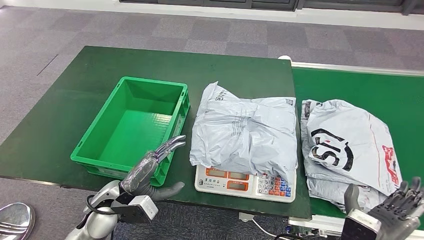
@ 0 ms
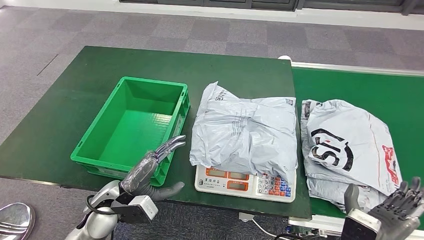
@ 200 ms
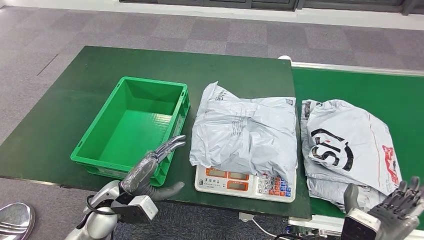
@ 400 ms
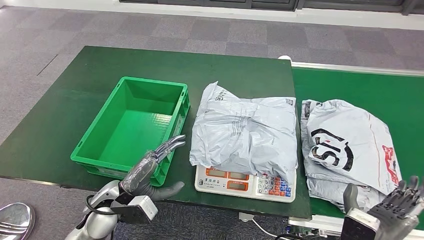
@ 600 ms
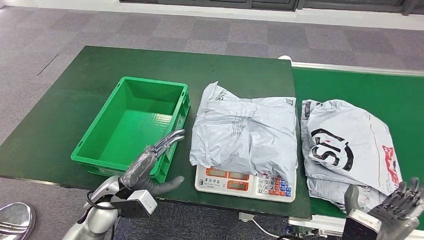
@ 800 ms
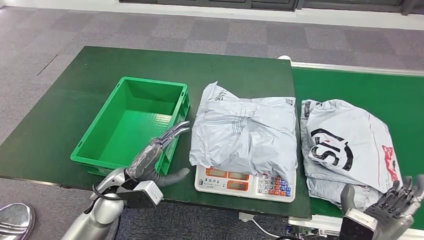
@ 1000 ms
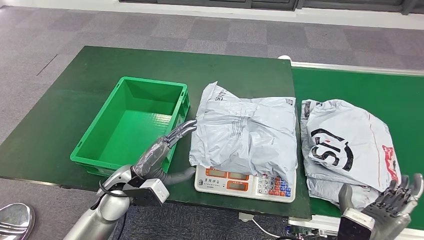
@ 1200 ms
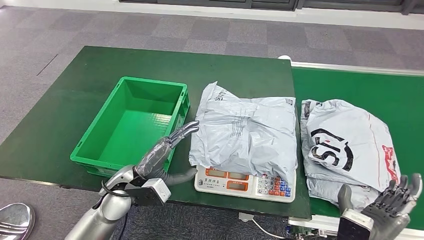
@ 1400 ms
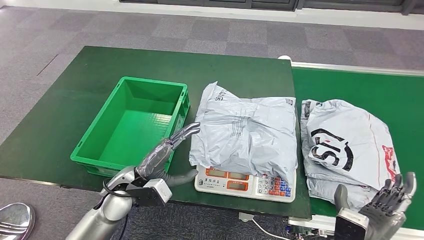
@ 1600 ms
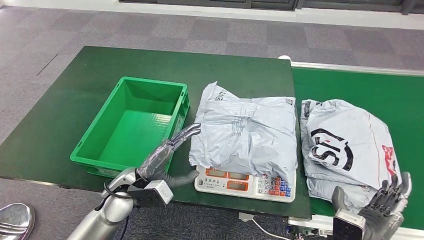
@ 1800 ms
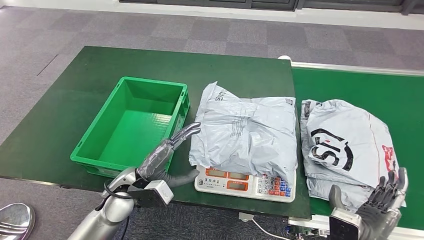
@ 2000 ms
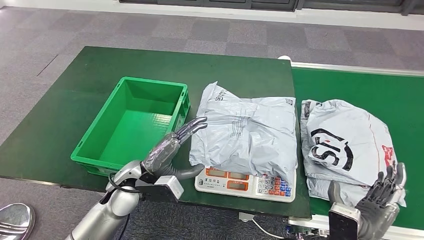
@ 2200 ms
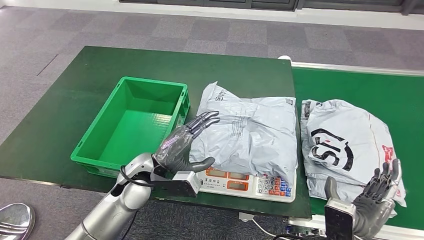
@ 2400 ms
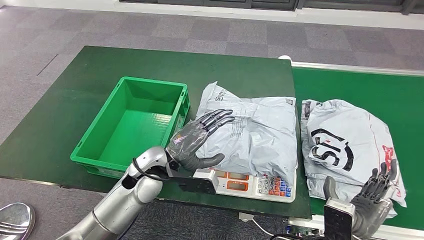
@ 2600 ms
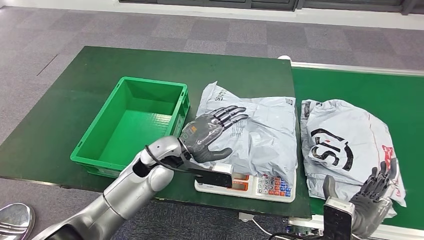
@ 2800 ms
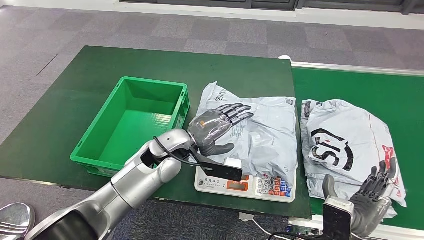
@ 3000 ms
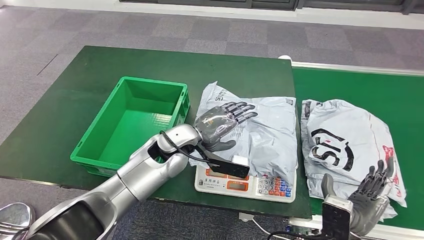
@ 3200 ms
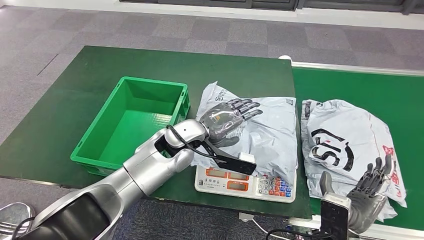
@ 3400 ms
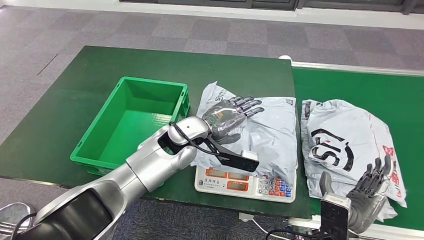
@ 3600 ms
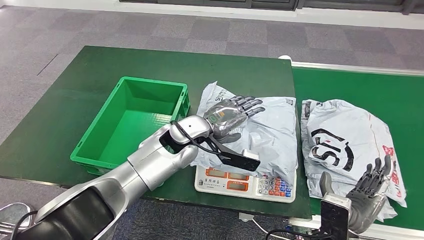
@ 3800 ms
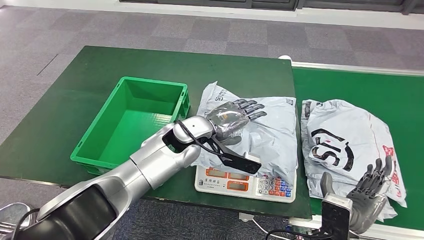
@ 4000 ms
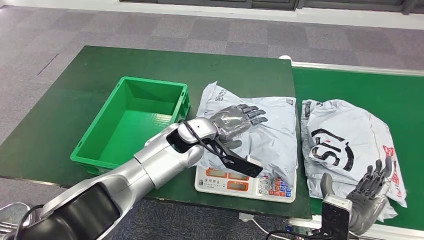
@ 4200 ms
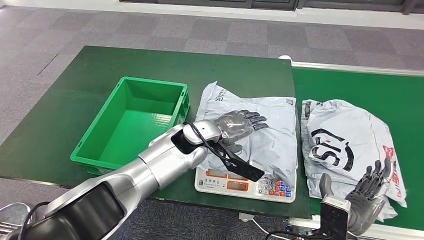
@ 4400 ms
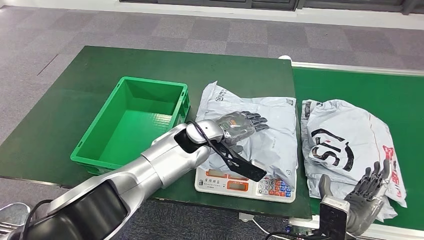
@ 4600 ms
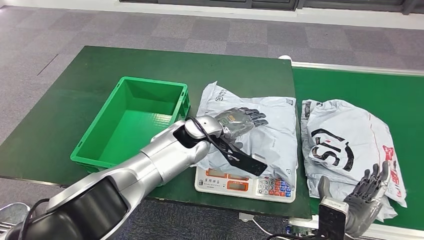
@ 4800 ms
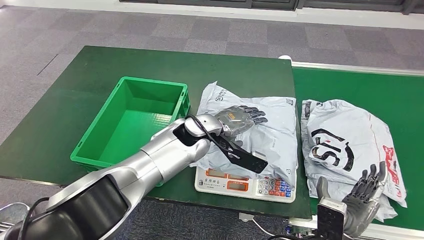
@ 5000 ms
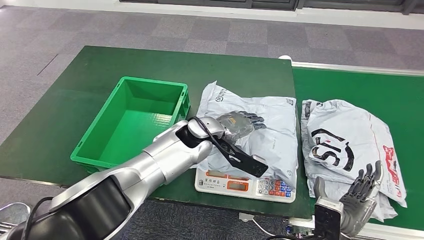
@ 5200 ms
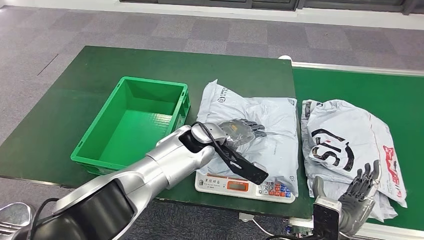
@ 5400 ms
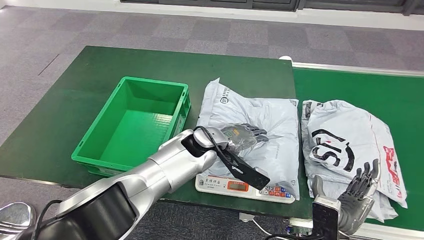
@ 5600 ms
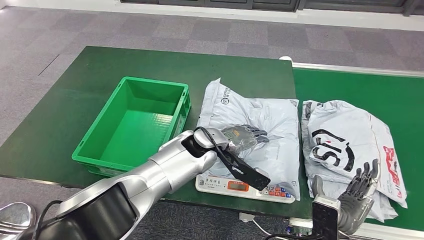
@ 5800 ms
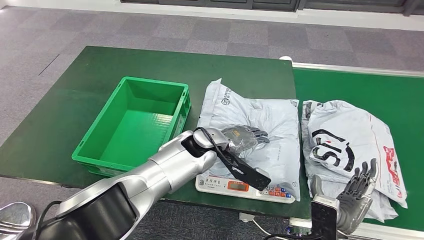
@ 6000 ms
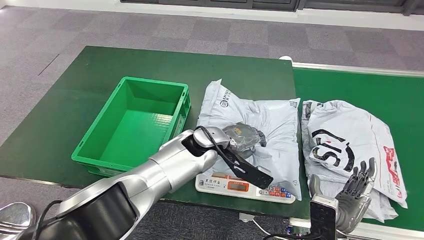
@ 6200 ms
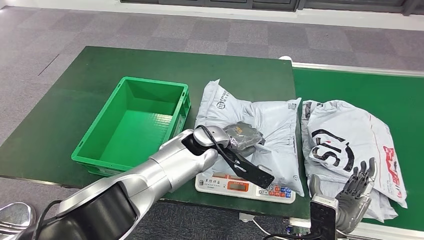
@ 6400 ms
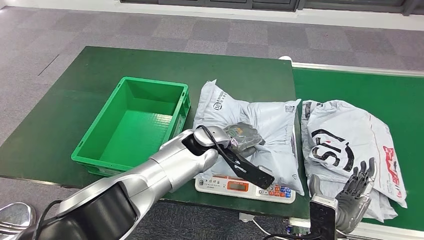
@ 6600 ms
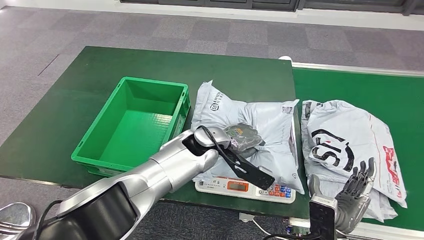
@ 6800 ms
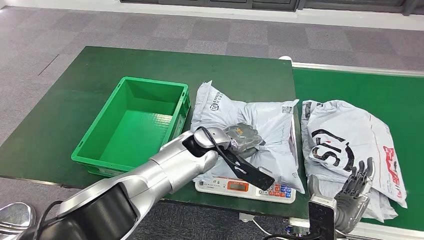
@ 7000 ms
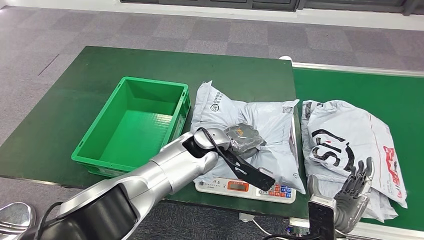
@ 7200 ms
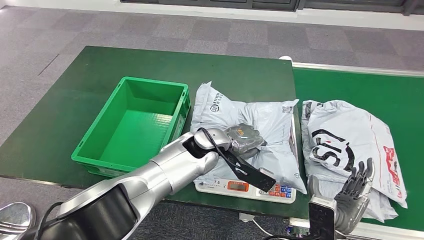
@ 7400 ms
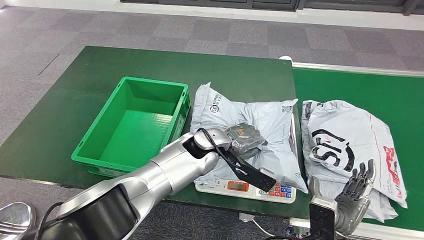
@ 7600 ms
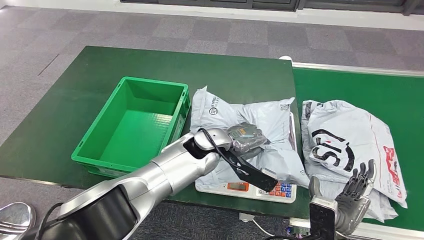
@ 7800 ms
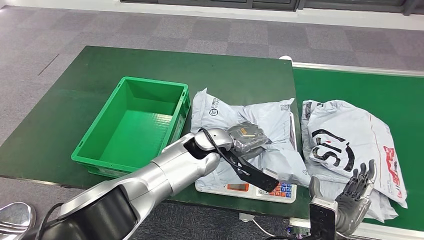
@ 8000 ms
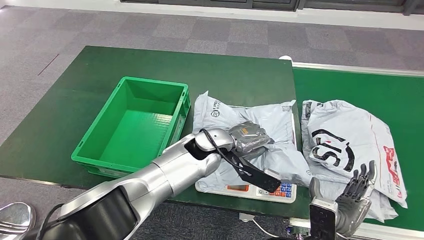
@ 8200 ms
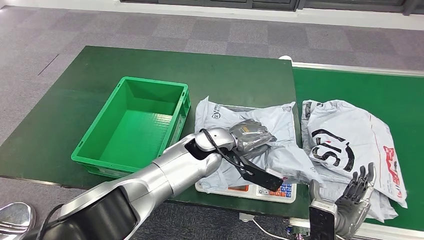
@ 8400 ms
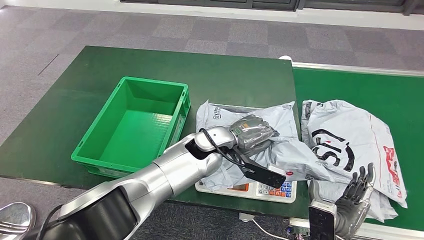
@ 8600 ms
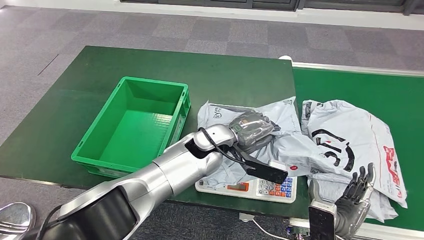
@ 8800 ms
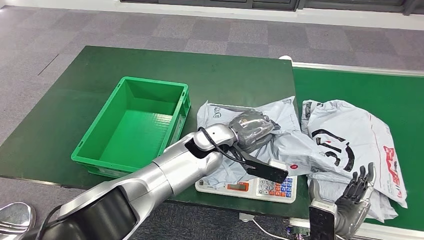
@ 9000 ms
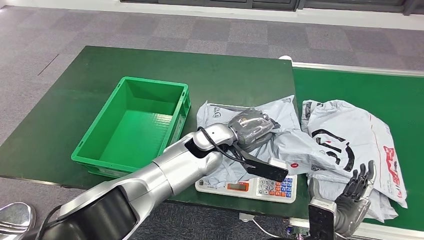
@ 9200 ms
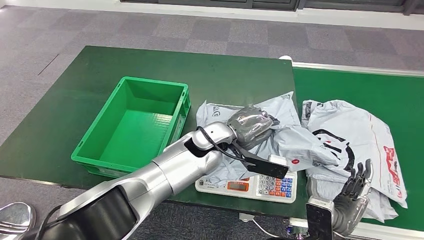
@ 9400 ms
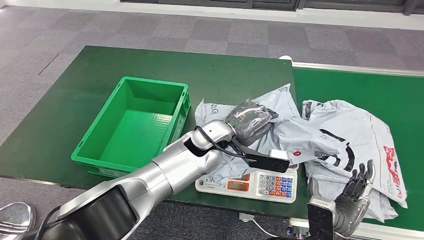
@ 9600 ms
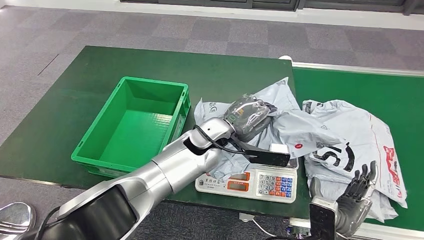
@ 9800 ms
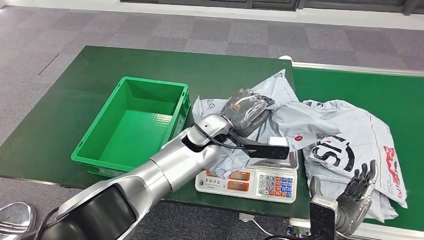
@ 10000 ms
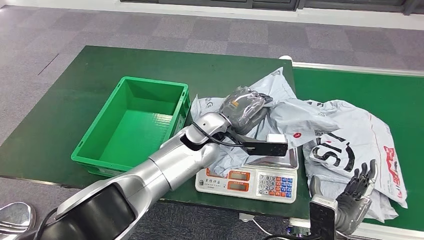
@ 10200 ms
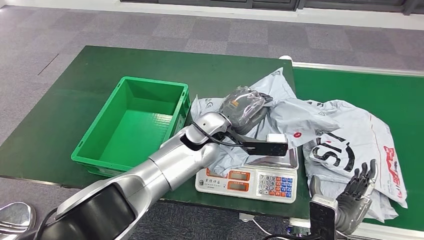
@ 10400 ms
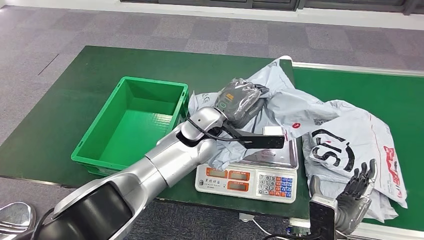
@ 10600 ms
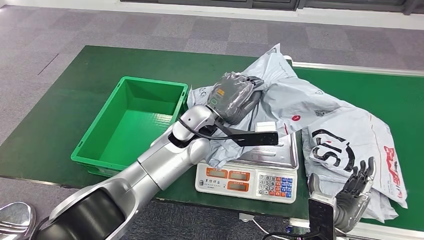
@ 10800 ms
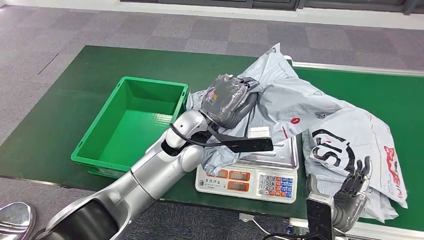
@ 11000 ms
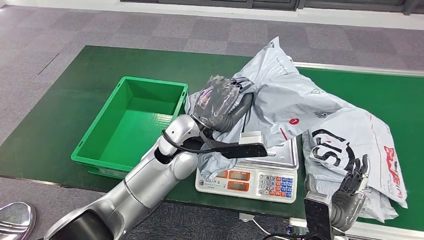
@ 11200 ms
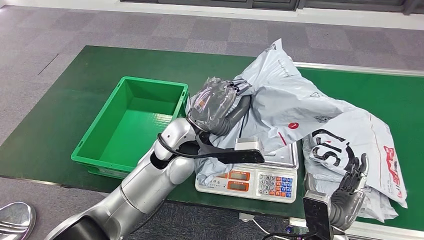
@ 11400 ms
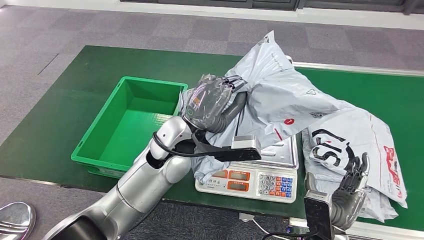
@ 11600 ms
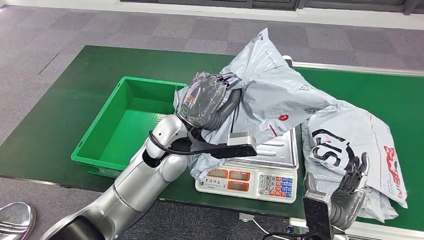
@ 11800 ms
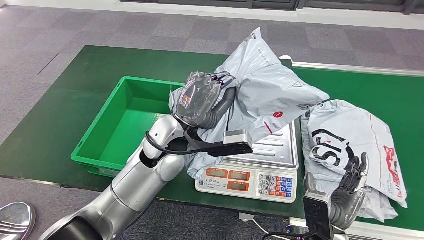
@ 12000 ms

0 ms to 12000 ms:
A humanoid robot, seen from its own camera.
0 ms to 1600 ms: The left hand moves about 5 cm.
1600 ms to 3000 ms: The left hand moves to the right, forward and upward, roughly 15 cm.
3000 ms to 4400 ms: The left hand travels to the right by roughly 5 cm.
4400 ms to 9000 ms: The hands move only a little.
9000 ms to 10400 ms: The hands move only a little.

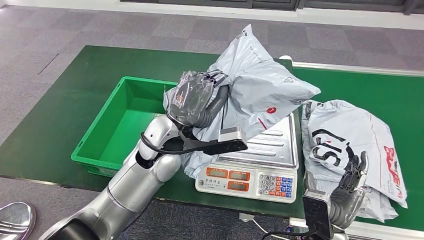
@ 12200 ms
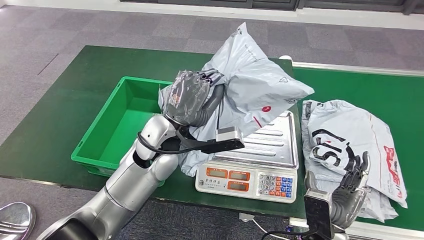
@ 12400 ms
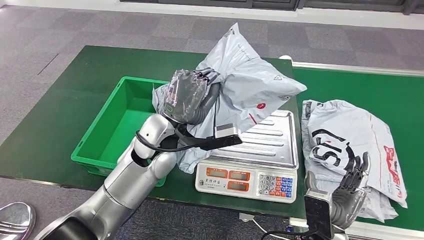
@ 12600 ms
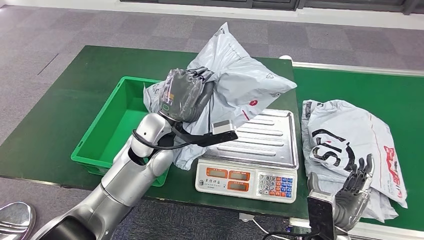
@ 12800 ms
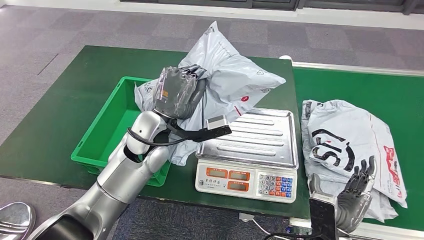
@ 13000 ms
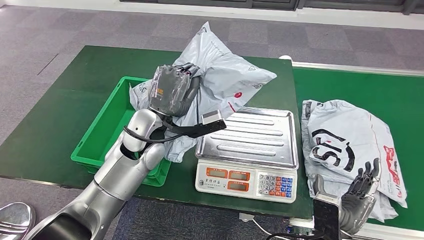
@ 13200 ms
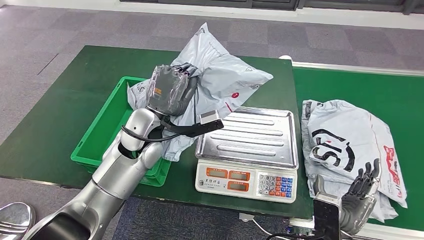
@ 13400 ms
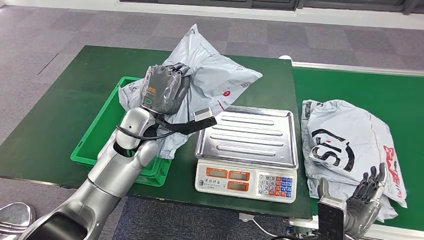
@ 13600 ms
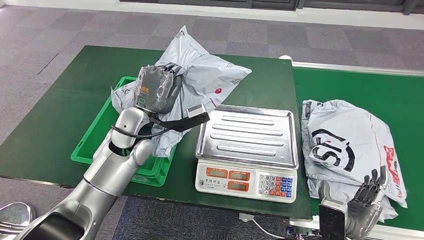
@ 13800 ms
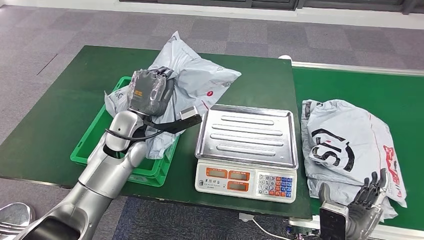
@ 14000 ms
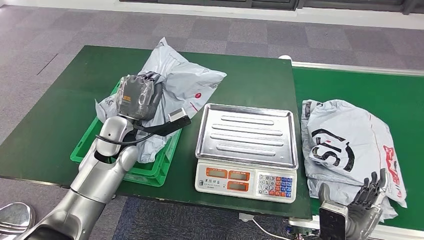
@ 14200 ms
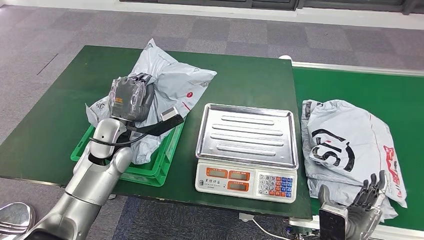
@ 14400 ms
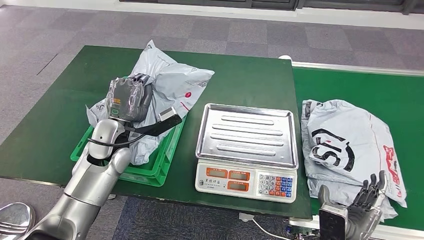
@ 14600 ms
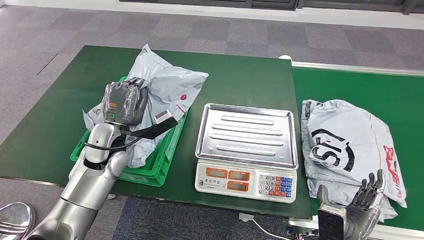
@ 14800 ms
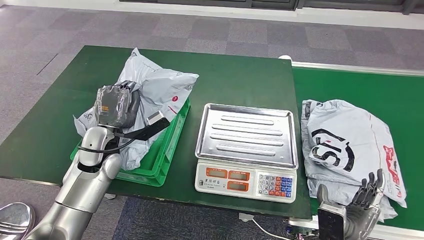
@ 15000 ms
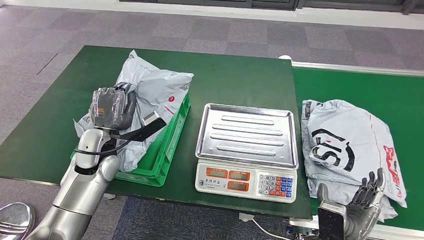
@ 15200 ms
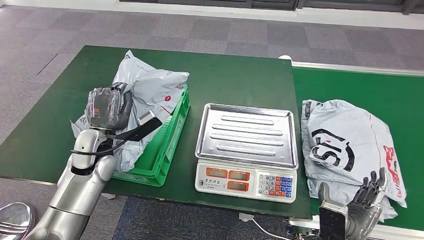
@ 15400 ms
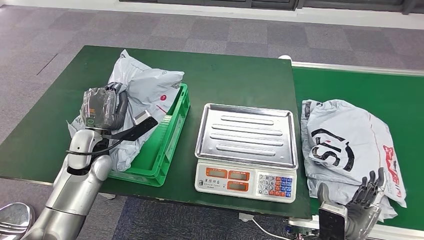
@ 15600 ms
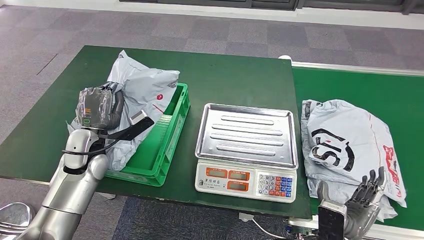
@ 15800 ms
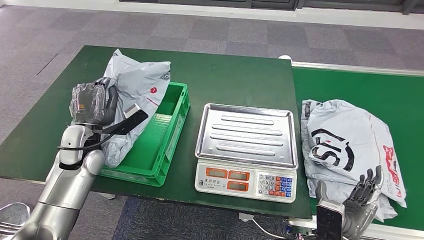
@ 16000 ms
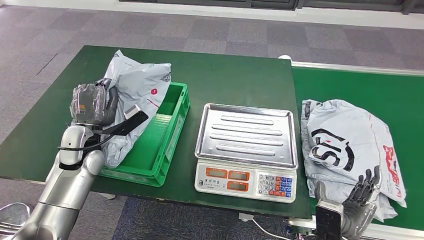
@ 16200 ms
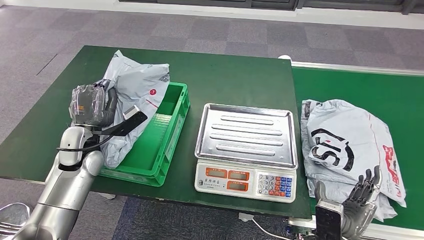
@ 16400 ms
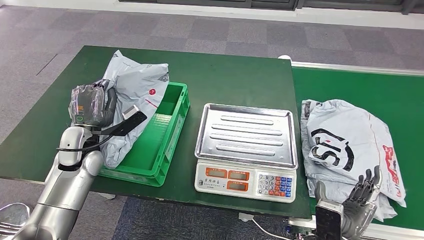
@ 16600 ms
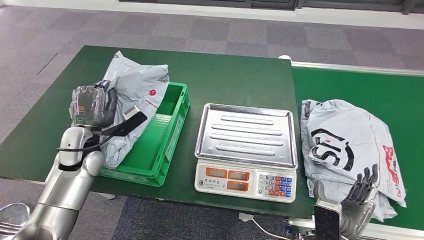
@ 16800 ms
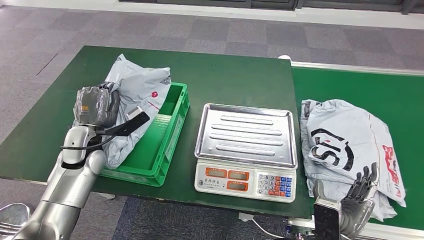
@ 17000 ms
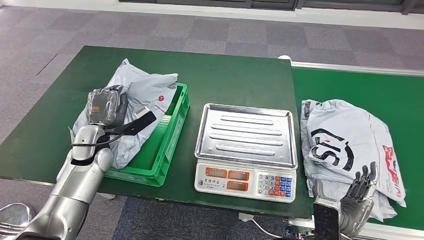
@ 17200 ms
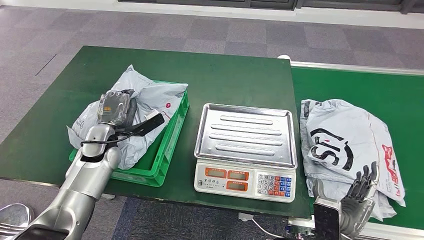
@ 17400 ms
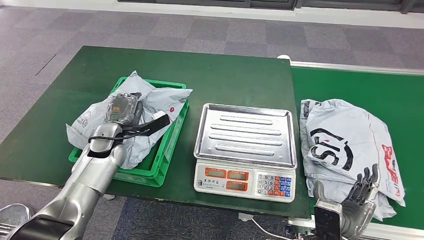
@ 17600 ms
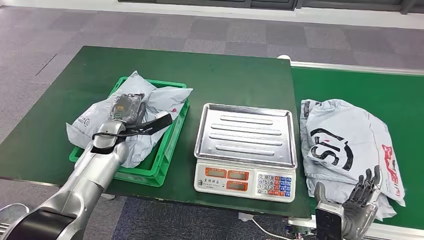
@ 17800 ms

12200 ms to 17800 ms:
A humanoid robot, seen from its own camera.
Step, 12400 ms to 17600 ms: Put the parcel inside the courier box.
13600 ms to 15000 ms: The left hand moves to the left and downward, about 15 cm.
15000 ms to 16400 ms: The left hand moves to the left, approximately 5 cm.
16400 ms to 17800 ms: The left hand travels downward, forward and to the right by some 10 cm.
